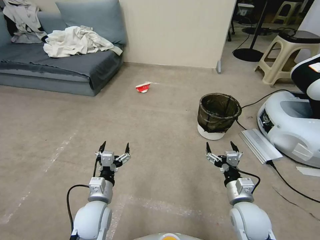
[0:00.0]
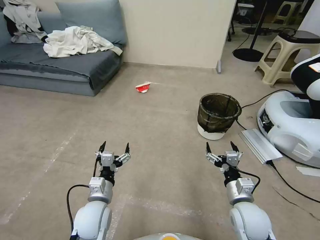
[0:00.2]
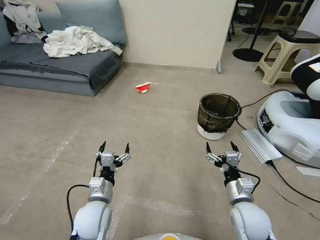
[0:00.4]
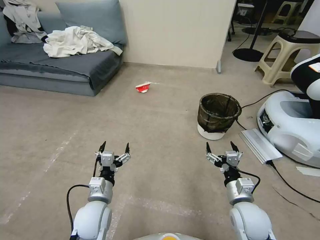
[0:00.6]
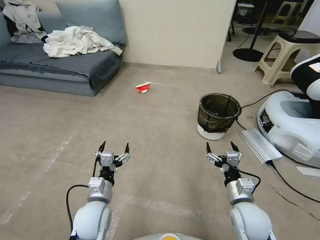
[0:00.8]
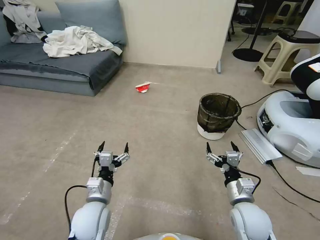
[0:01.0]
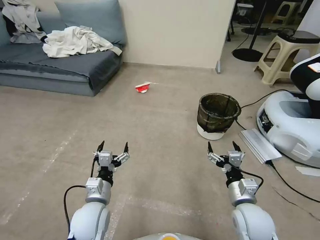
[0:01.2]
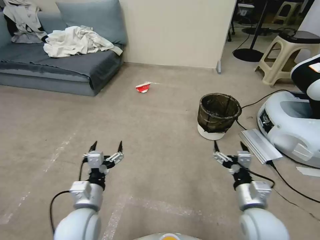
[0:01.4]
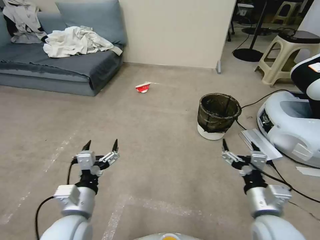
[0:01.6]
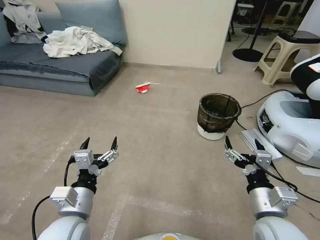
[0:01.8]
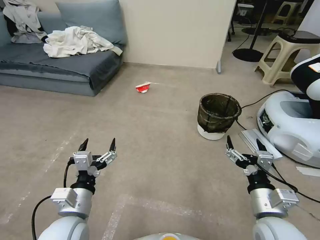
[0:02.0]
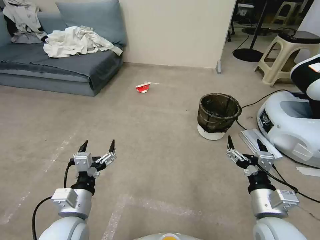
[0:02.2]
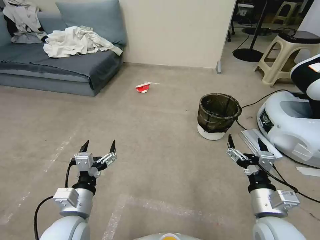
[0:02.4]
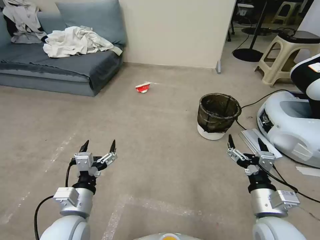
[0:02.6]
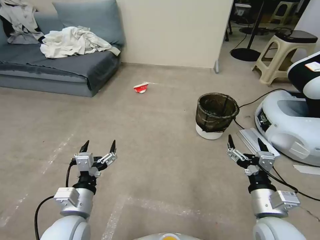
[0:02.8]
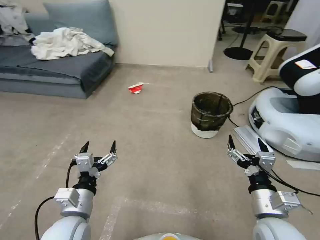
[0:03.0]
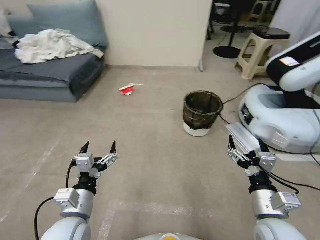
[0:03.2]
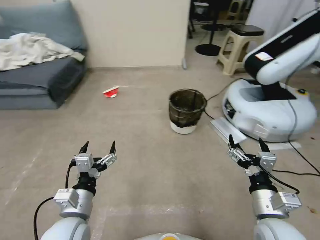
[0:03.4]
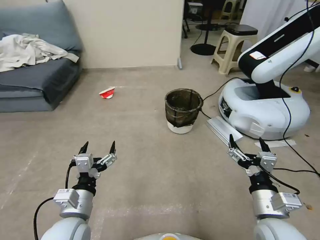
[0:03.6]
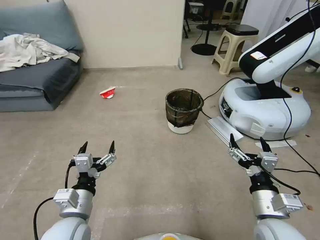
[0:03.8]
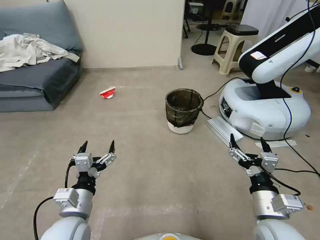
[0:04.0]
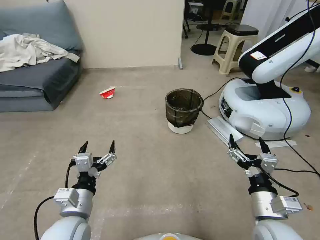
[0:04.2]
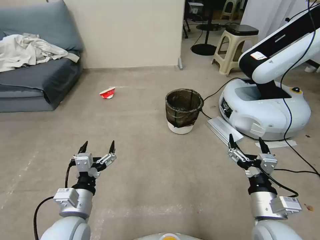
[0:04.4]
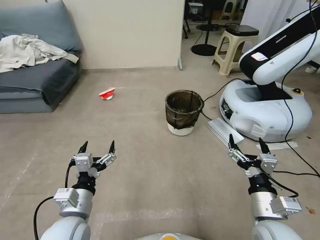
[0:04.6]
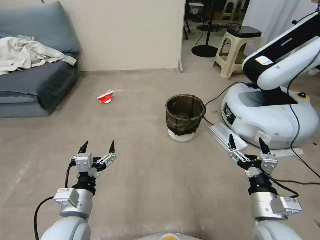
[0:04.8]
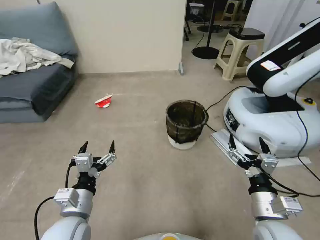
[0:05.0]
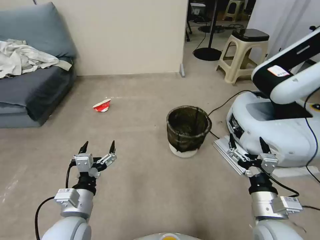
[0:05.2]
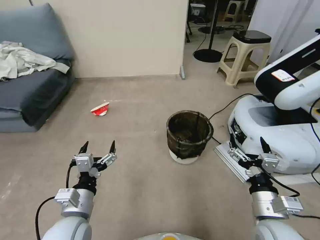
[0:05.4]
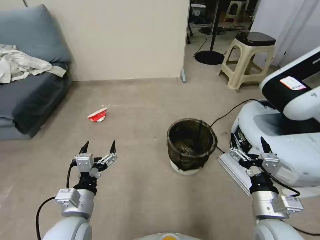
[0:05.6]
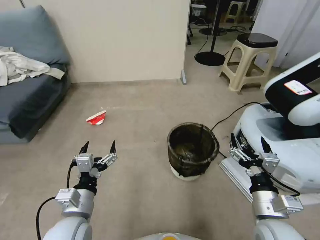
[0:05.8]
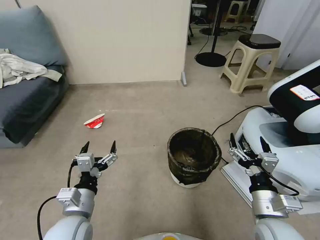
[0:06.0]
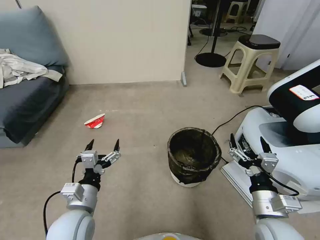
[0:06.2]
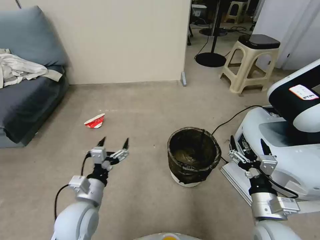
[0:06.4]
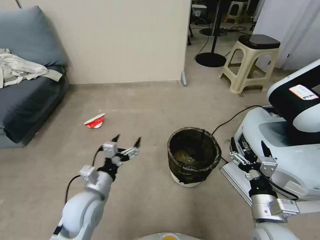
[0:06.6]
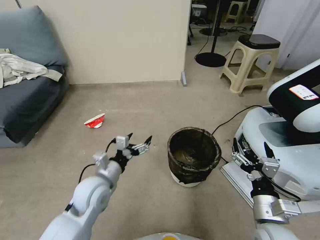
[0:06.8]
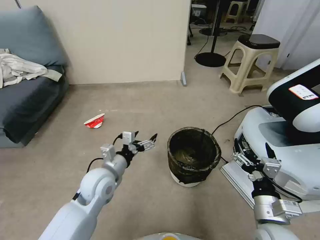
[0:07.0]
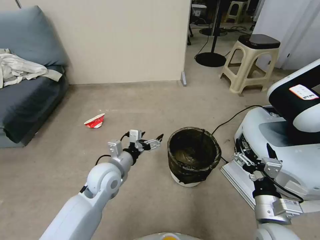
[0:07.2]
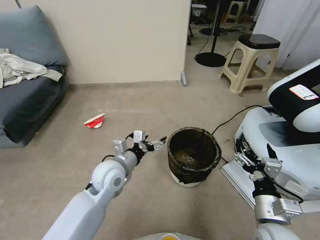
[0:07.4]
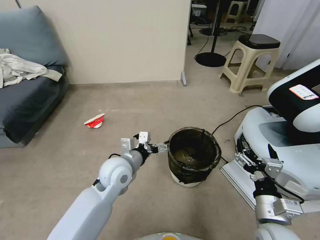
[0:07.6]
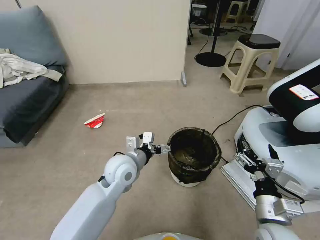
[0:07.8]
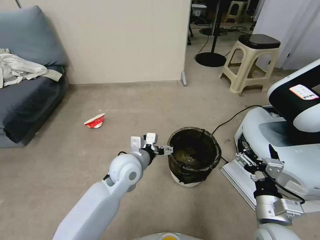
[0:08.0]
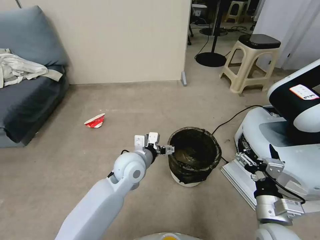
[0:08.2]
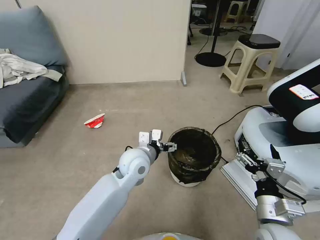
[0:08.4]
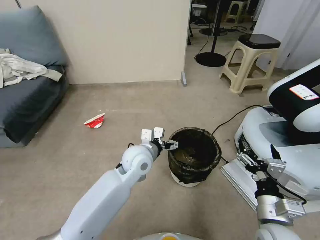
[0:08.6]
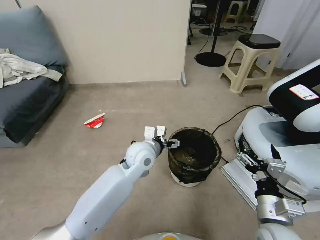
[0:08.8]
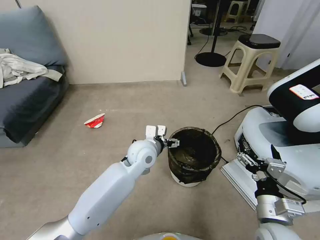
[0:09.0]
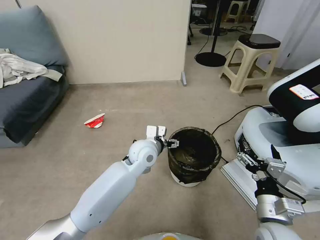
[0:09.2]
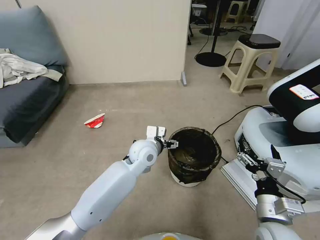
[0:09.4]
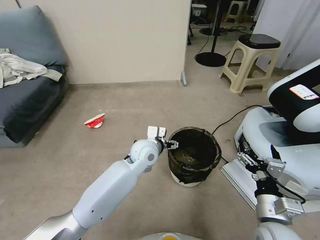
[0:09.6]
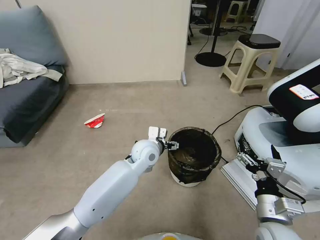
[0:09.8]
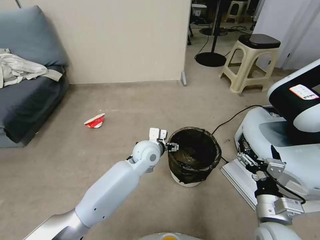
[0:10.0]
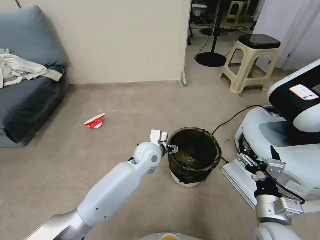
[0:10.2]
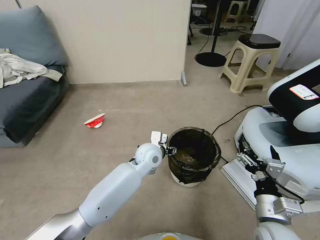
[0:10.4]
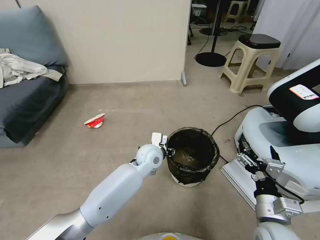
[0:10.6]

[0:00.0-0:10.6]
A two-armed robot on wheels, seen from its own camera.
Task of the whole recording: Pick up the trash can from the floor.
0:06.0 to 0:07.6: The left gripper moves forward and to the right, about 15 cm.
0:07.6 to 0:09.0: The left gripper travels to the right and forward by roughly 10 cm.
0:09.0 to 0:10.6: The left gripper moves downward, approximately 5 cm, and closes.

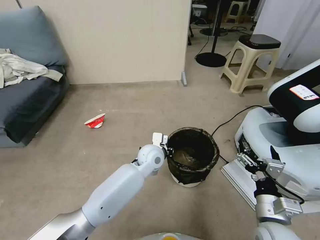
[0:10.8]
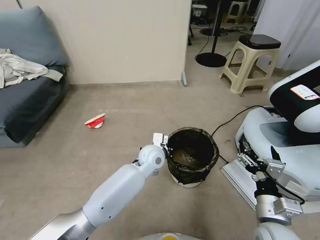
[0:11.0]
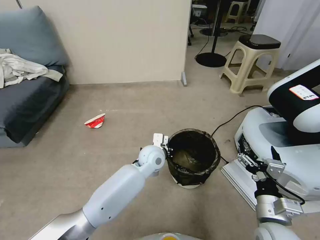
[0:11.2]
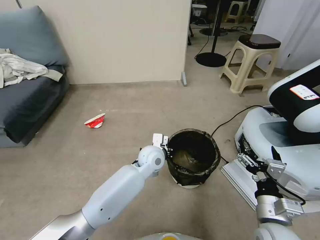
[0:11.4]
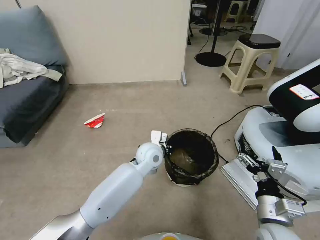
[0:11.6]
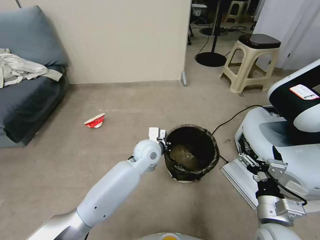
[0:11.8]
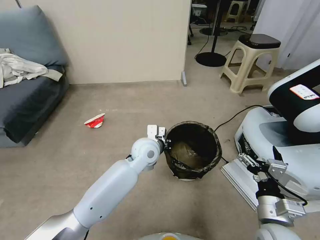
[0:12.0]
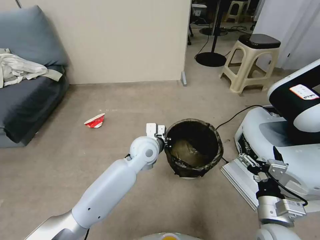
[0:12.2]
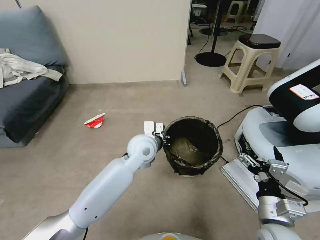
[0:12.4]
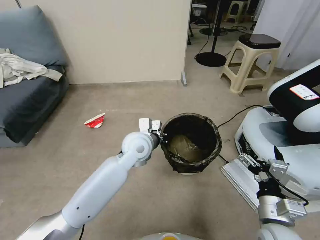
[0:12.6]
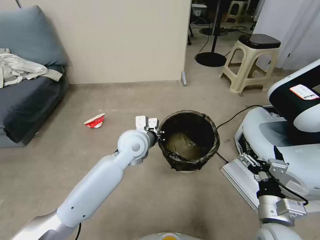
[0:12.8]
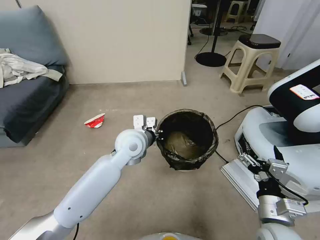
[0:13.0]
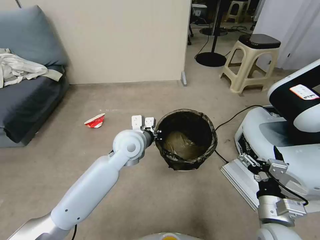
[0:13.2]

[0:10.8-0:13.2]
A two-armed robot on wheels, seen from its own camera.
Task of the whole recording: Pick up the trash can from the floor.
0:10.8 to 0:12.0: The left gripper changes place by some 5 cm.
0:12.0 to 0:13.2: The left gripper is displaced upward by roughly 5 cm.
